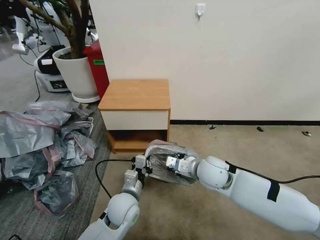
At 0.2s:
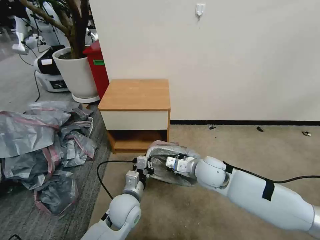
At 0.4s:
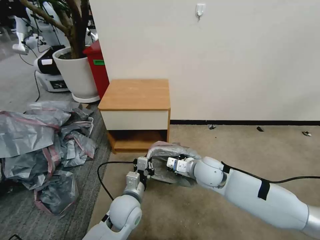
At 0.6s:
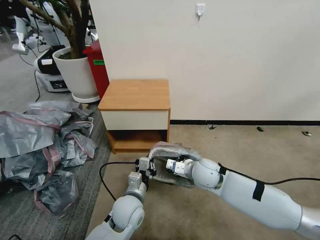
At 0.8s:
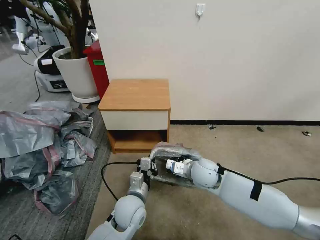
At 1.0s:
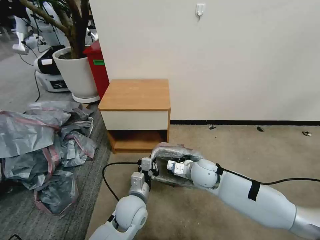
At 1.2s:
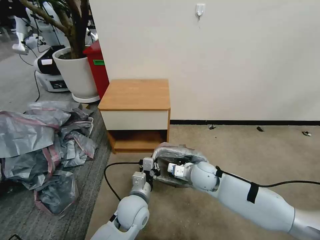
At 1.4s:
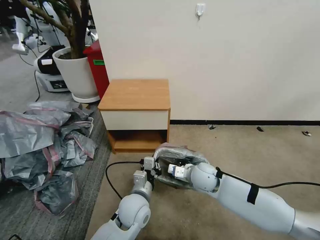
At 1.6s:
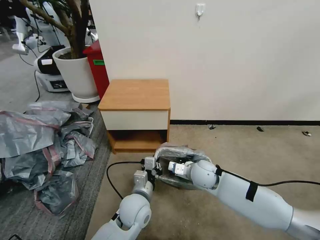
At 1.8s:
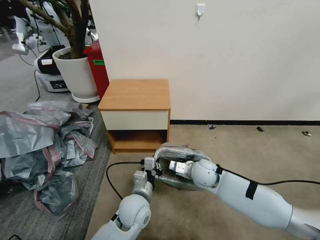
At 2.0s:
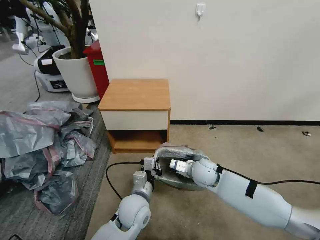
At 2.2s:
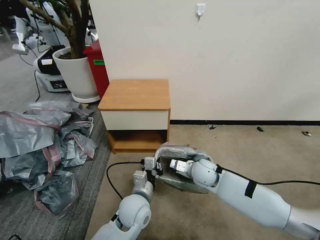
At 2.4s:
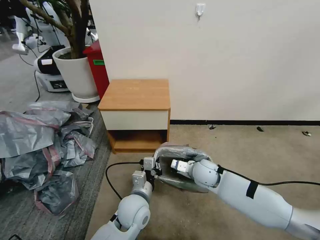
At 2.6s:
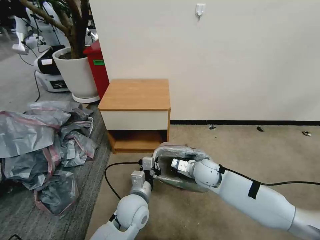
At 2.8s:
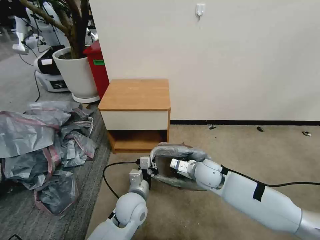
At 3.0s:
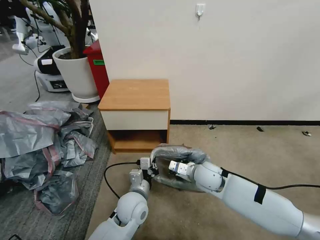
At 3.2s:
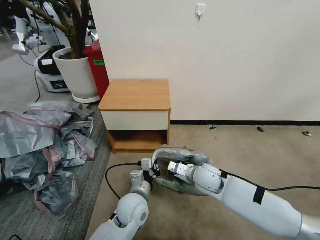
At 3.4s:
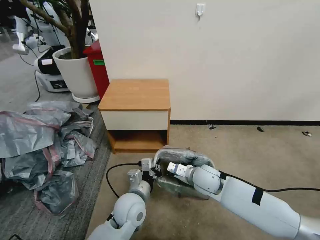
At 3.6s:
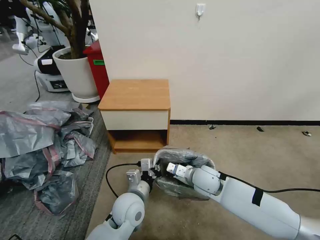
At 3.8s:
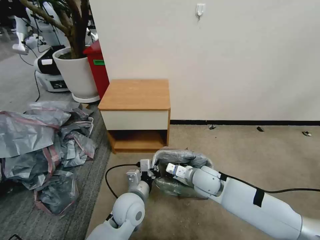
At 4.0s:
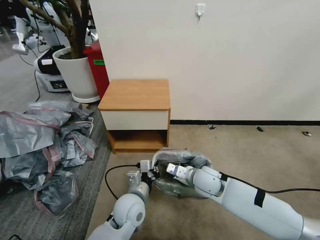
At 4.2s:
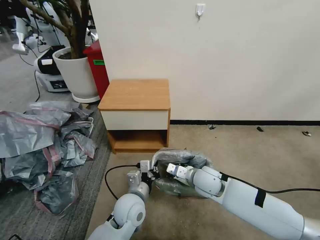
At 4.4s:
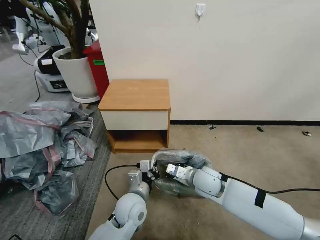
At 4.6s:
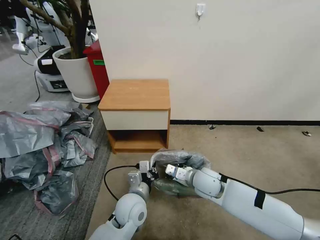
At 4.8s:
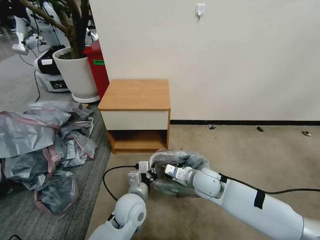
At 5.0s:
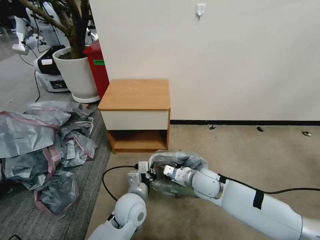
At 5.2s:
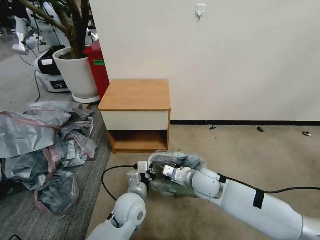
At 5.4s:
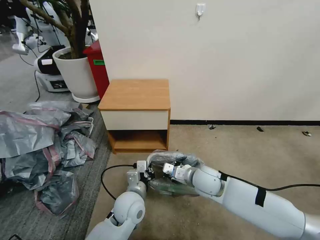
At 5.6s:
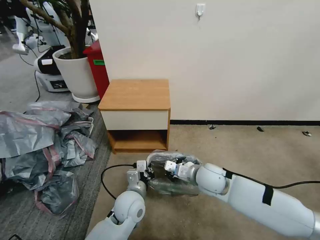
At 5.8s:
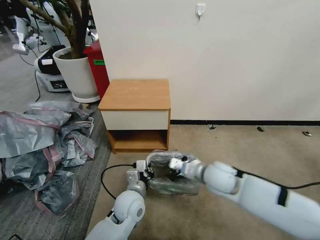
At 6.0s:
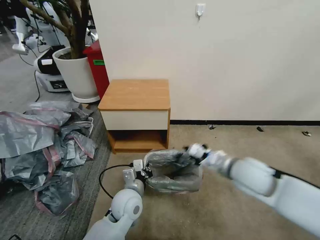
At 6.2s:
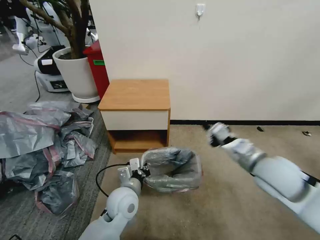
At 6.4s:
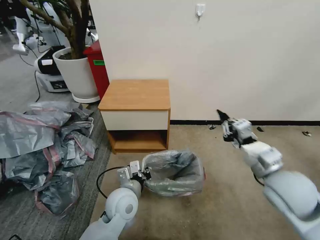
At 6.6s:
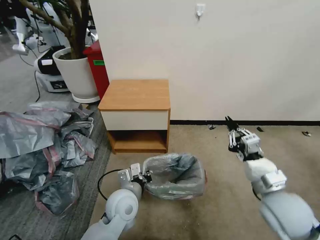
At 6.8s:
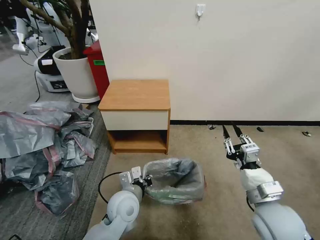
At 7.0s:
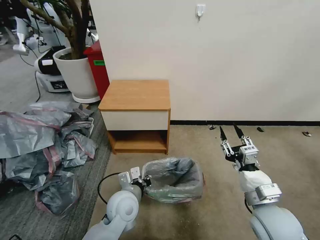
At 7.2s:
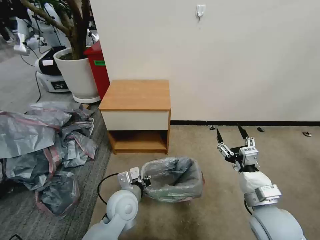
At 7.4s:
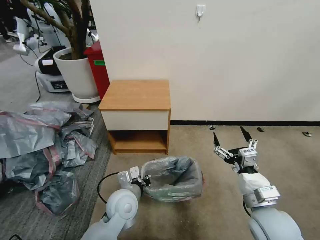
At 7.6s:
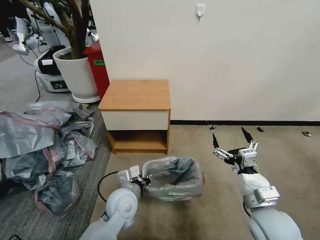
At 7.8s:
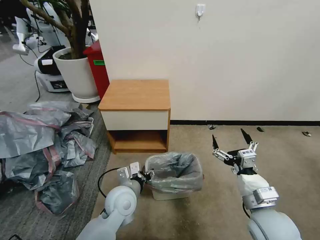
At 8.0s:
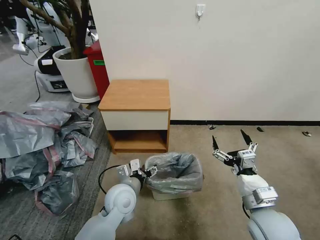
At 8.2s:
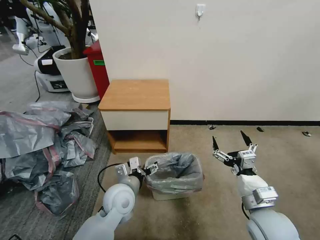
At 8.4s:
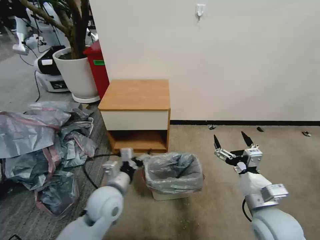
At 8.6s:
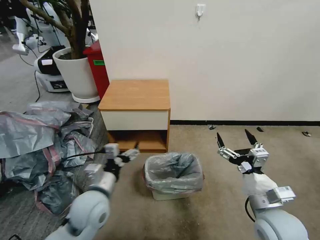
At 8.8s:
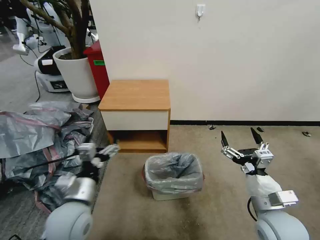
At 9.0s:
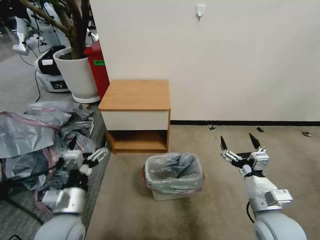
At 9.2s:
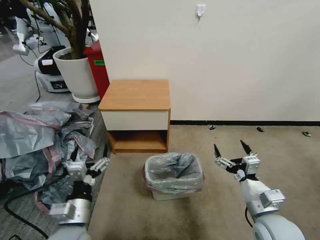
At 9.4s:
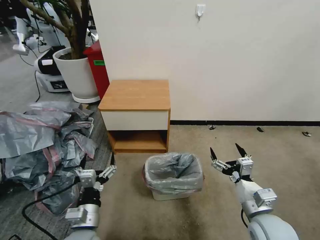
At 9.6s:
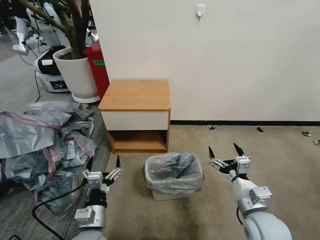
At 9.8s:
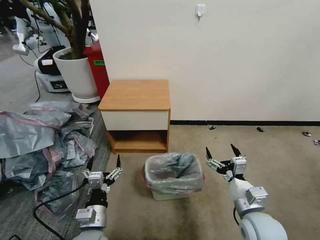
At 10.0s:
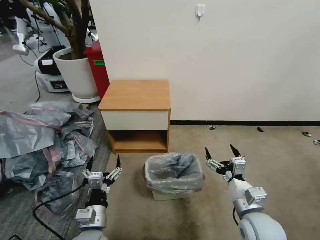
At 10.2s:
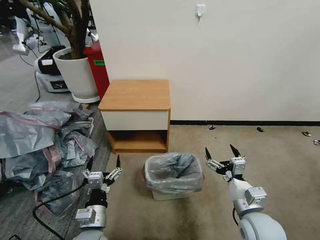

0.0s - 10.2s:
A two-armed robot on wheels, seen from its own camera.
Task of the whole recording: Pick up the garbage bag from the table and place it over the trash can.
0.0s - 1.4s: The right gripper heads downward, covering some 10 cm.
1.4s - 4.4s: The grippers make only small movements.
4.4s - 5.8s: The right gripper goes roughly 5 cm upward.
5.8s - 7.2s: The right gripper heads backward and to the right, covering roughly 15 cm, and opens.
7.2s - 8.8s: The left gripper travels to the left, upward and backward by about 15 cm, and opens up.
8.8s - 10.2s: The left gripper travels downward by roughly 10 cm.

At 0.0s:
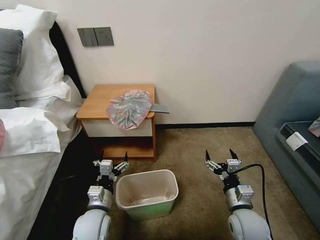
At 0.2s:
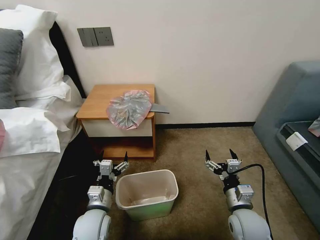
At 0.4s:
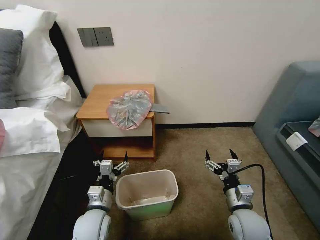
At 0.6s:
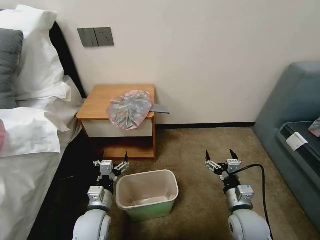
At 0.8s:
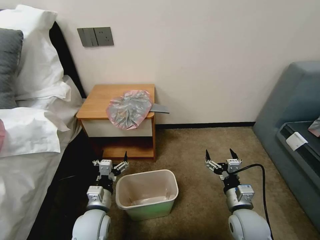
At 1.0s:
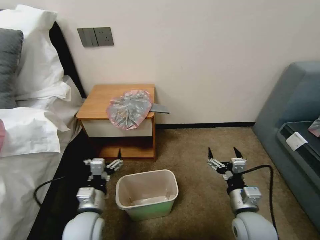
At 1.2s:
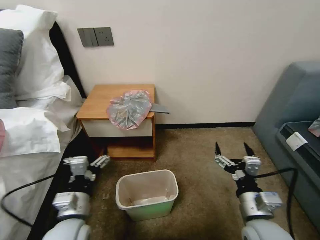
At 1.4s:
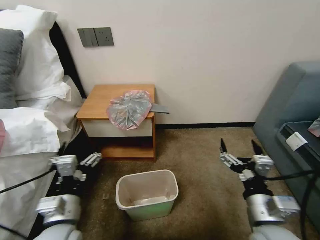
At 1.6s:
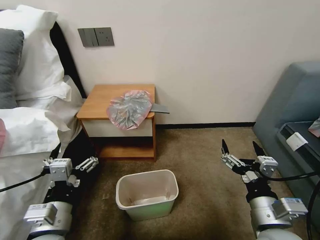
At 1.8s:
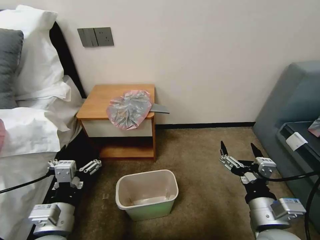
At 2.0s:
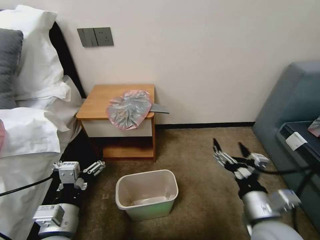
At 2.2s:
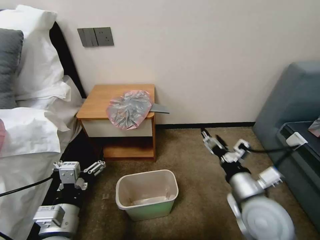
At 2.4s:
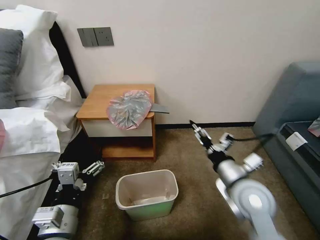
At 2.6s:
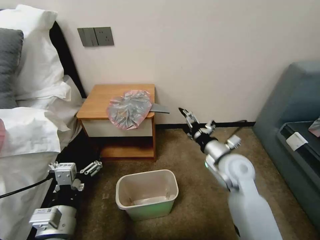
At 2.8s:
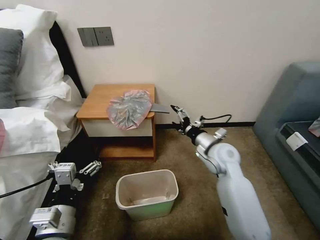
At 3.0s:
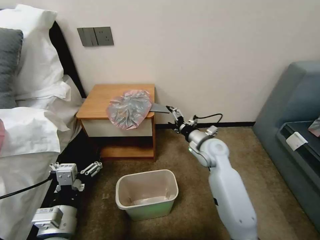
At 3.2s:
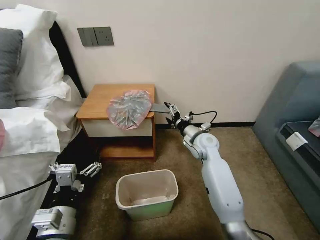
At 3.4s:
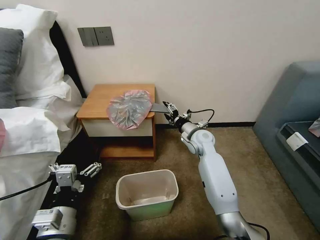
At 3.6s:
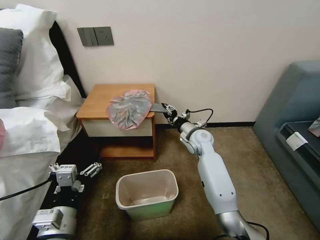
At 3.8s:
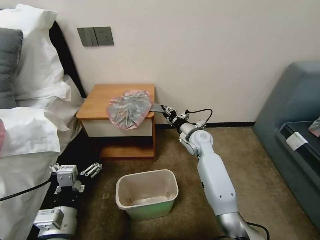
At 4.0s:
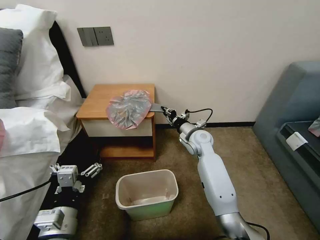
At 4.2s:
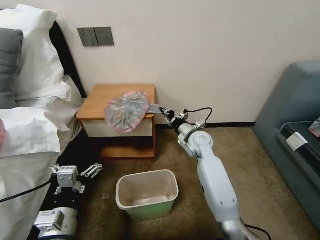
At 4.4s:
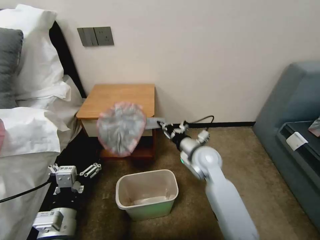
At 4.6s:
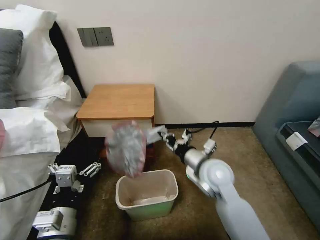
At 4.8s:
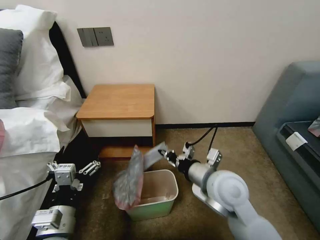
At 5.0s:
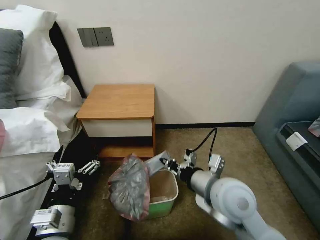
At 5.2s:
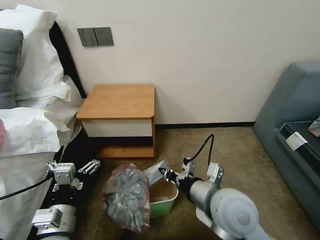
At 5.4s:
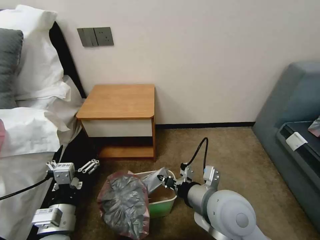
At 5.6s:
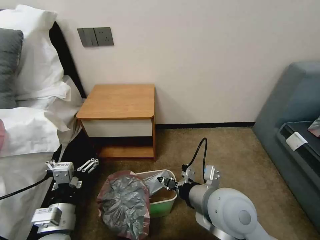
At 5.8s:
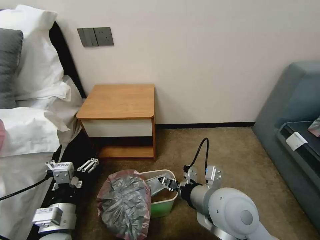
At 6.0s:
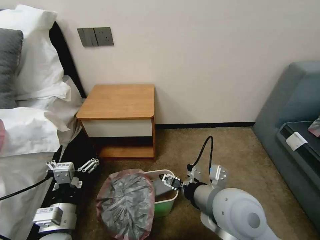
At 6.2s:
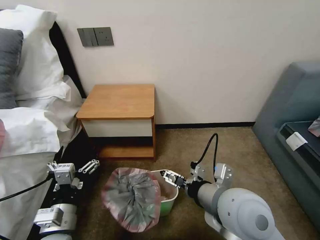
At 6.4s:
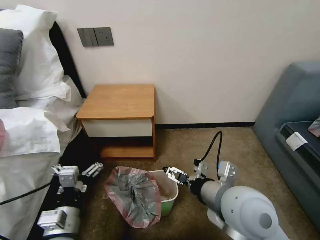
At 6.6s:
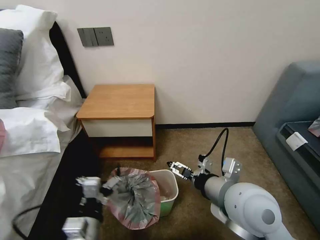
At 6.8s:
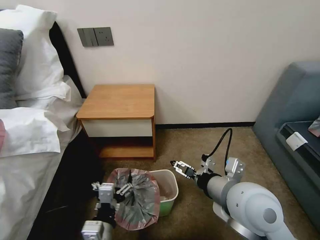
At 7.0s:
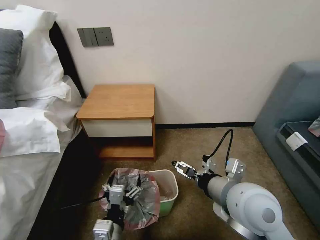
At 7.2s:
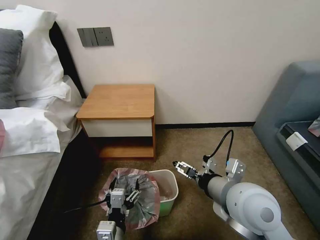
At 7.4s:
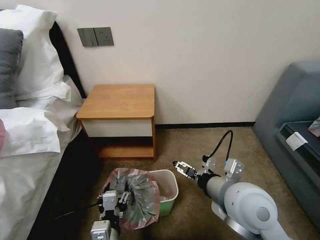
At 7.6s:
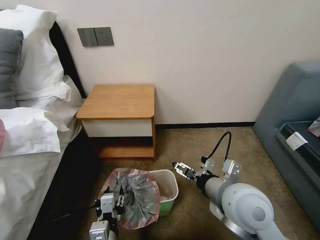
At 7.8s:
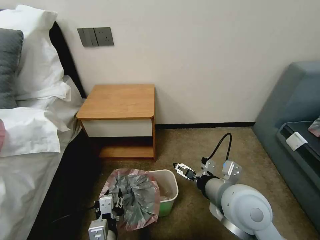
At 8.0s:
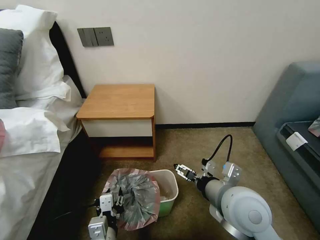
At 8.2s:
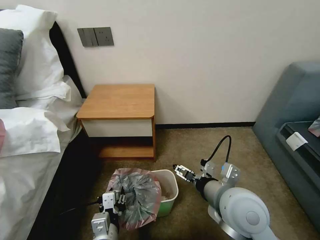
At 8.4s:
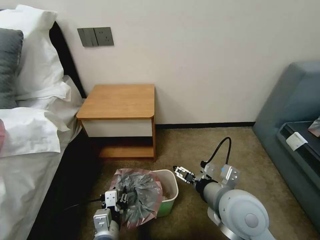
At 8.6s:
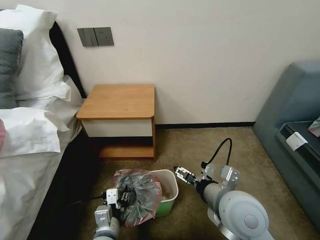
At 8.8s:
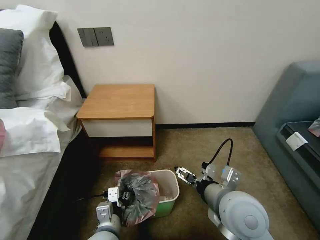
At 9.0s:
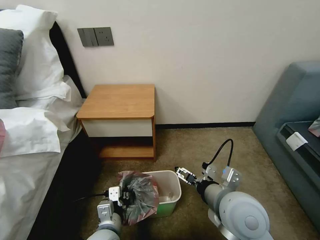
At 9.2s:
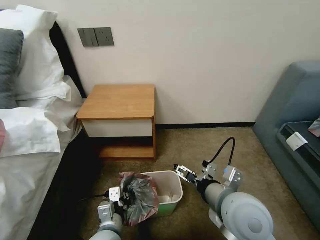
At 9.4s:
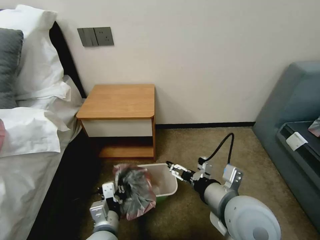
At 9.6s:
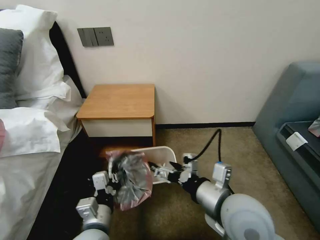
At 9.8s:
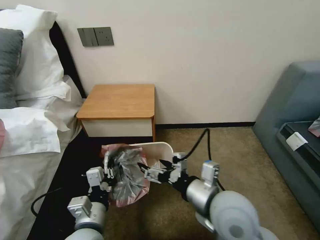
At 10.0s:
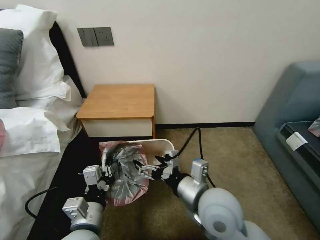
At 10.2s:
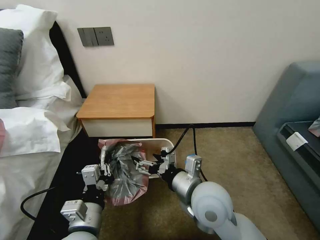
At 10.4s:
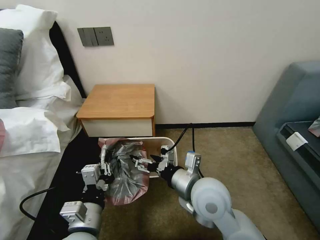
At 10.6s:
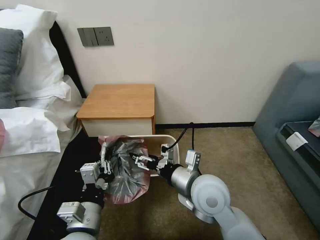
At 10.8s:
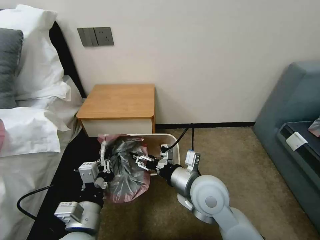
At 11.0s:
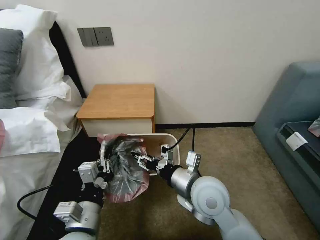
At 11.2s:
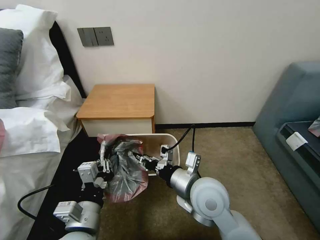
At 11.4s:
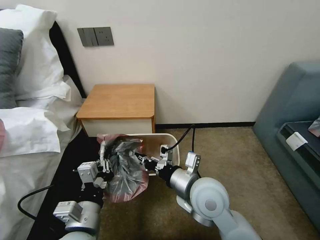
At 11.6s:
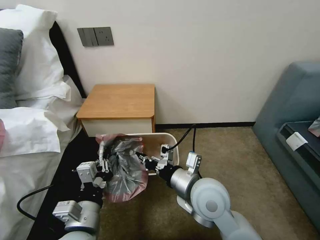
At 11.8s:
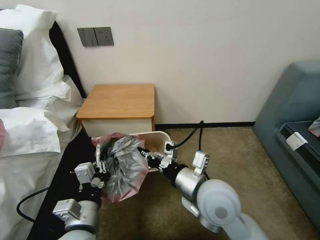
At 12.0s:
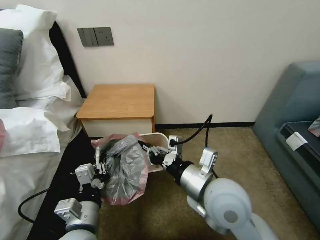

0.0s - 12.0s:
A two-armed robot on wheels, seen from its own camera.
Task of the whole recording: Pick up the garbage bag from the table and place it over the trash can.
1.6s - 3.0s: The right gripper goes roughly 30 cm forward.
3.0s - 4.4s: The right gripper goes forward and returns, approximately 5 cm each way, and closes its fingers.
4.4s - 6.0s: The right gripper travels backward and upward by approximately 20 cm, and opens.
6.0s - 7.6s: The left gripper shifts roughly 10 cm to the right, and closes its fingers.
7.6s - 9.0s: The left gripper moves forward, approximately 5 cm.
9.0s - 10.4s: The left gripper is displaced upward by about 10 cm. Meanwhile the right gripper travels to the left by roughly 5 cm.
10.4s - 12.0s: The right gripper shifts by about 5 cm, and closes.
